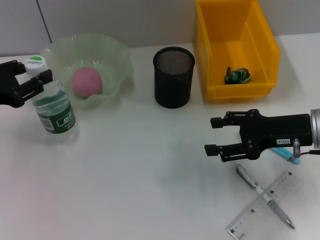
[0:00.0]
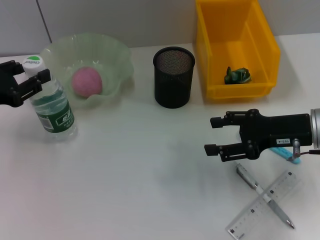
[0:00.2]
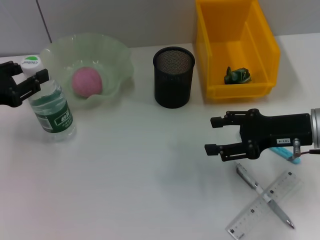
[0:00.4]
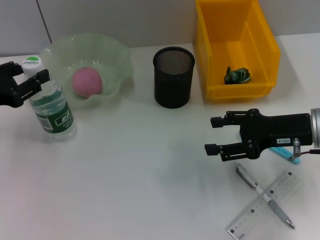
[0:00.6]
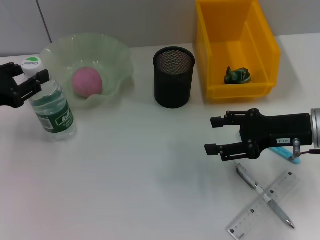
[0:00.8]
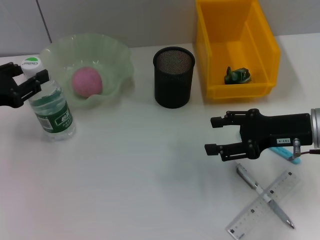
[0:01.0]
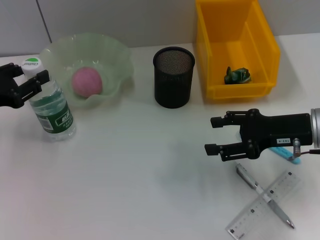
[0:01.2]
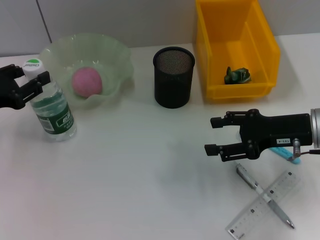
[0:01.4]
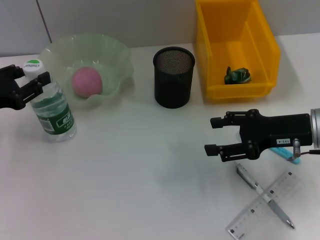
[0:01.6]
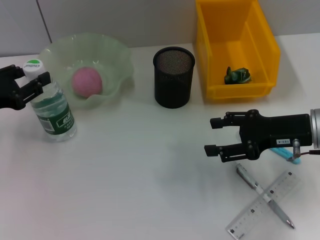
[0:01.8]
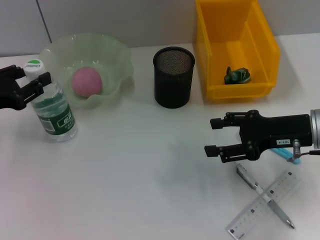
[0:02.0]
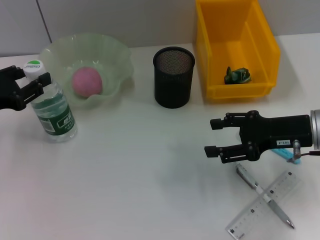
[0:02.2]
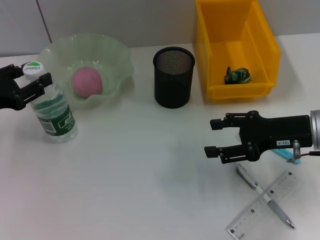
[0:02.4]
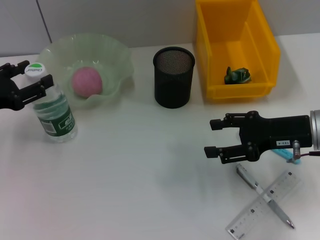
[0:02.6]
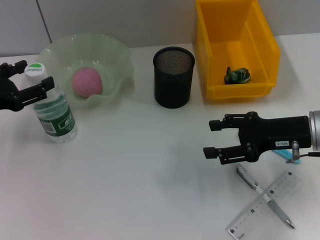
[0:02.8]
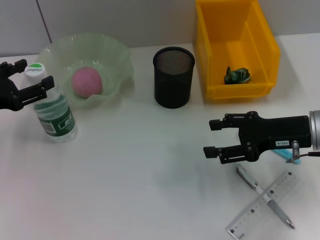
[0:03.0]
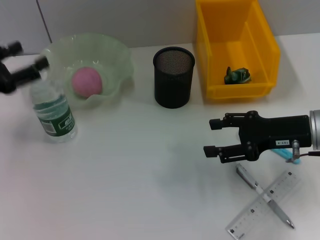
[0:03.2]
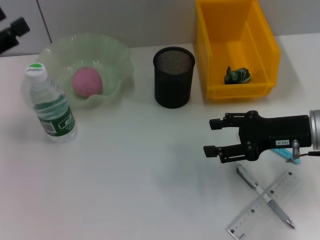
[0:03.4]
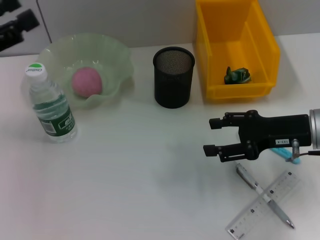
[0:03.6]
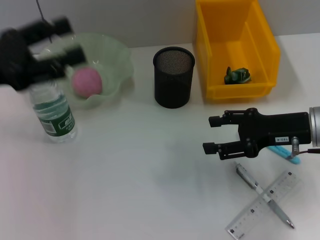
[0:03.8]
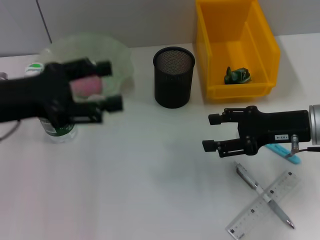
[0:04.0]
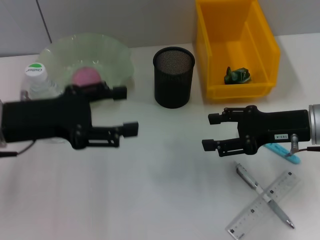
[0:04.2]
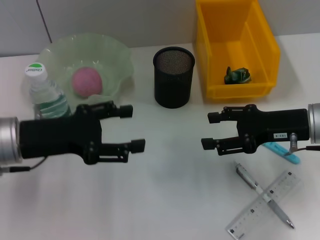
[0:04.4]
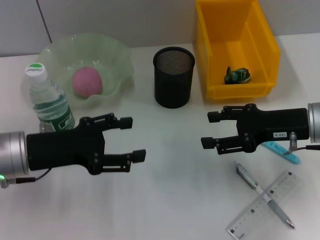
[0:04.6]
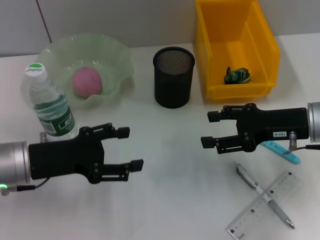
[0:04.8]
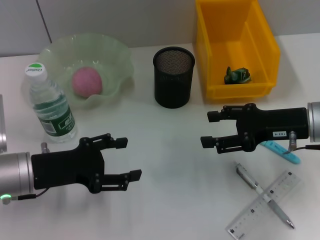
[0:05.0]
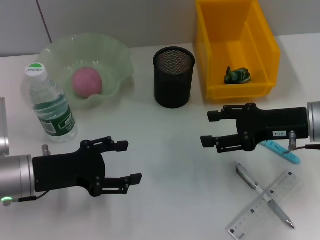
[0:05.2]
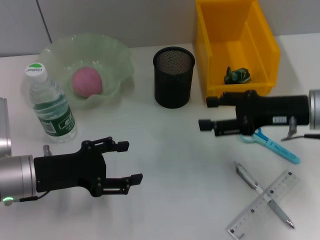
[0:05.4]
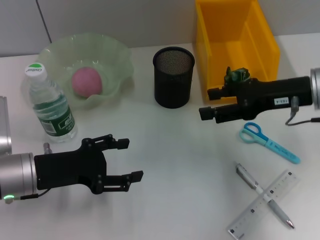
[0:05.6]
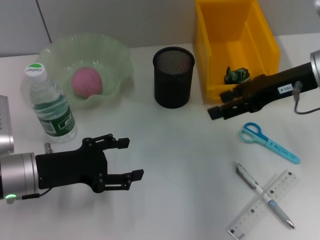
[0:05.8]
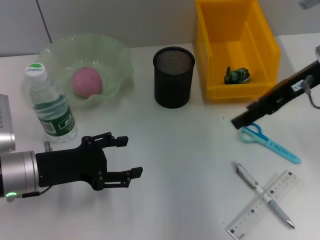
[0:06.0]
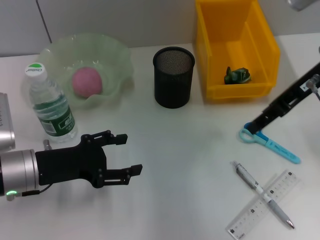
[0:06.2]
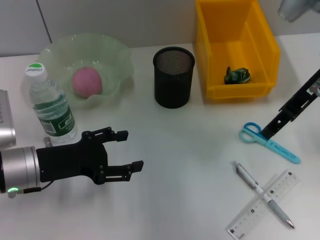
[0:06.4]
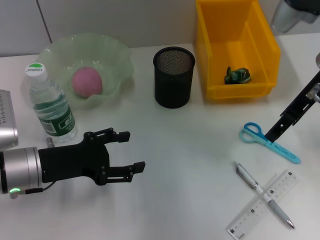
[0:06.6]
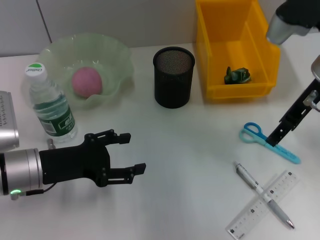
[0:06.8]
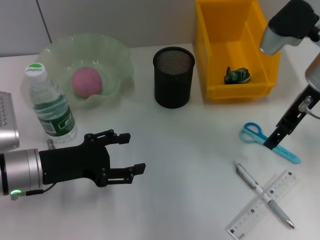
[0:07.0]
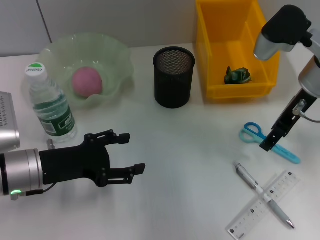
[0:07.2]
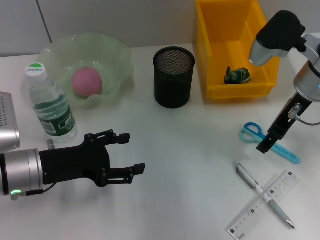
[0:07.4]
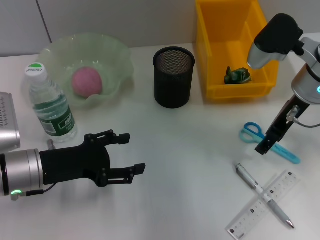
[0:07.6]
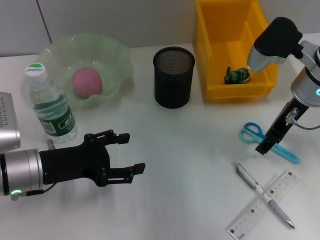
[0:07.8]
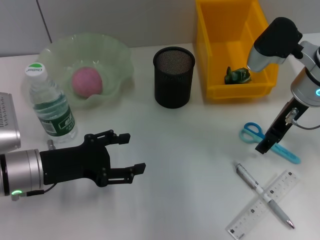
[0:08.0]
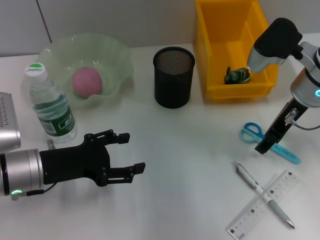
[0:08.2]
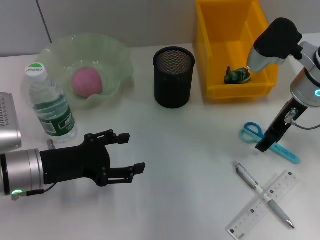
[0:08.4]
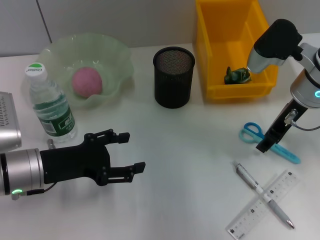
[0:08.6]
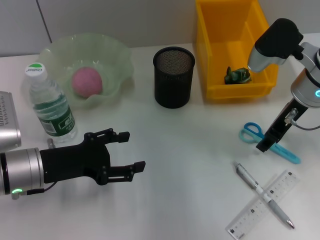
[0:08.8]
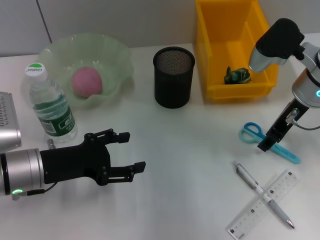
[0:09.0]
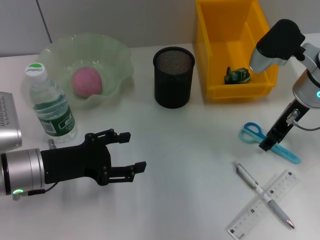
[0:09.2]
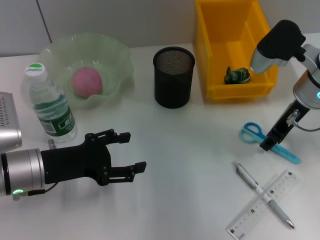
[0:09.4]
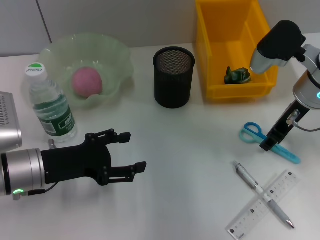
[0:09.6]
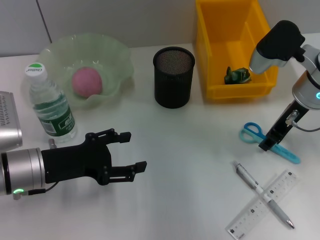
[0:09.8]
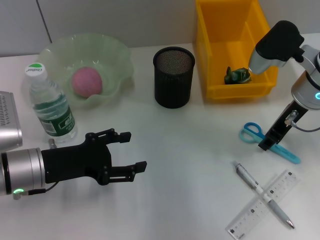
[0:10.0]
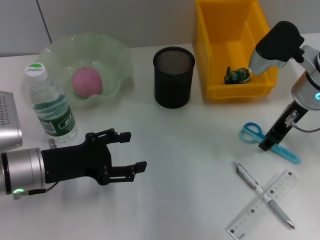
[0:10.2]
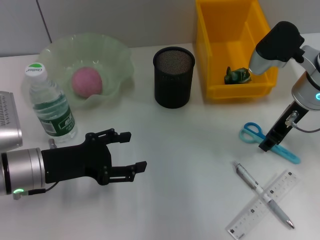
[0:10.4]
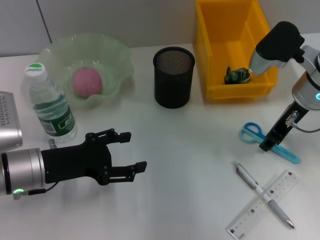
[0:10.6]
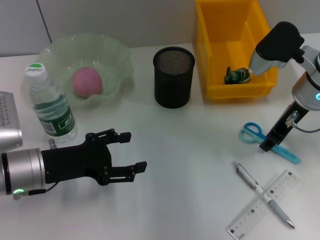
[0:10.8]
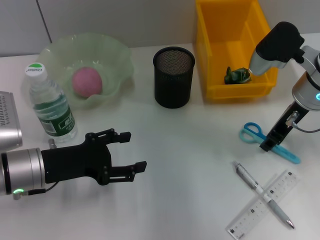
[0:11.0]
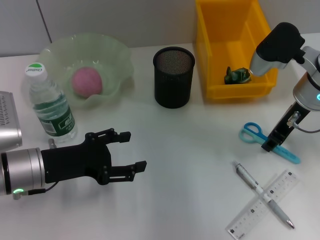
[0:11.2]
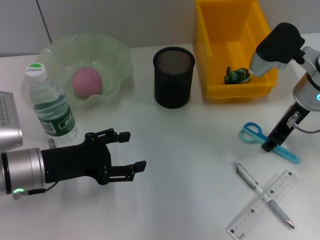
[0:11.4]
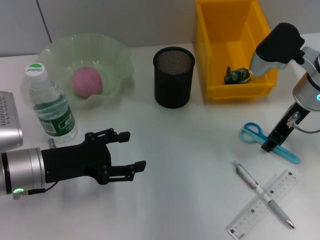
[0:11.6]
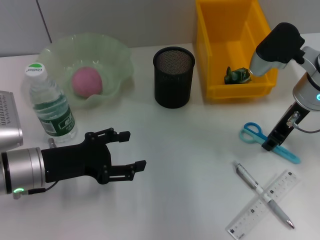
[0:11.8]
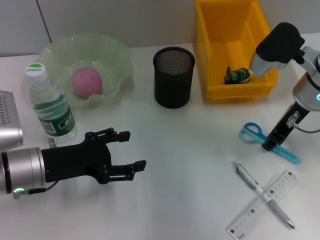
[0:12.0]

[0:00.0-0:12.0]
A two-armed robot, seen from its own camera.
Step, 0:00.0 to 0:03.0: Place the water bottle on the table with the left hand.
0:00.0 to 0:01.6: The grippers stay close to where they were, moving slightly.
0:01.6 to 0:03.0: The left gripper opens.
0:03.0 to 0:04.4: The left gripper travels to the right by approximately 10 cm.
0:04.4 to 0:06.0: The right gripper moves upward and forward, some 10 cm. The left gripper travels downward by some 5 cm.
0:06.0 to 0:07.6: The right gripper travels downward by roughly 5 cm.
0:07.6 to 0:09.0: The two grippers keep their place.
0:09.0 to 0:12.0: The two grippers keep their place.

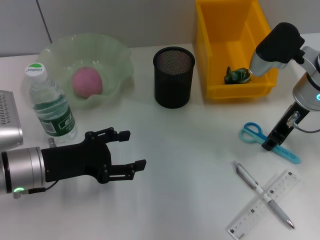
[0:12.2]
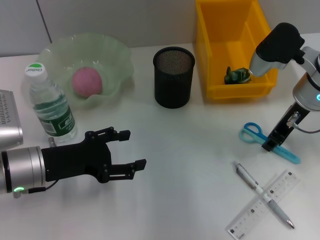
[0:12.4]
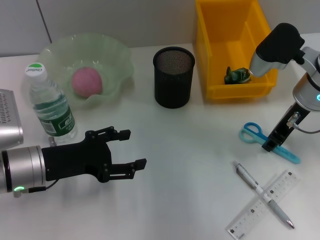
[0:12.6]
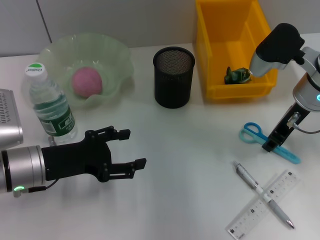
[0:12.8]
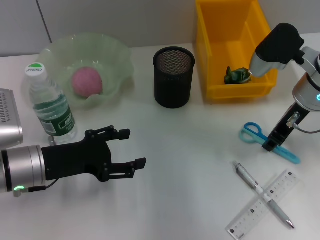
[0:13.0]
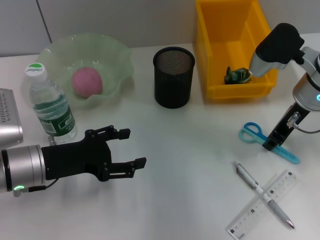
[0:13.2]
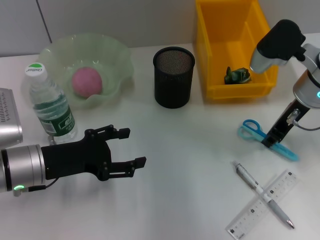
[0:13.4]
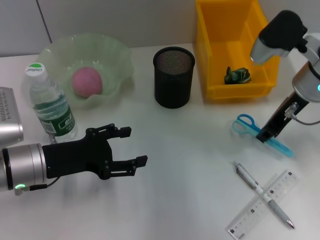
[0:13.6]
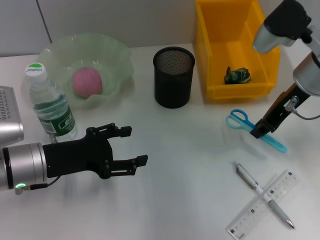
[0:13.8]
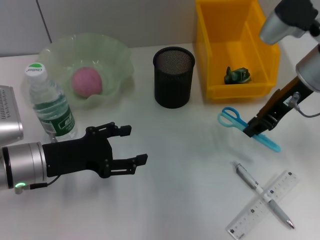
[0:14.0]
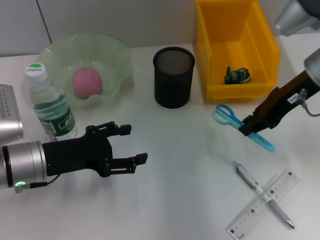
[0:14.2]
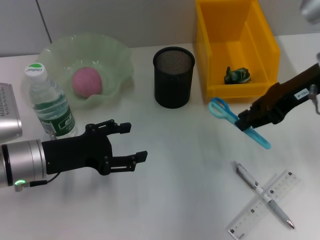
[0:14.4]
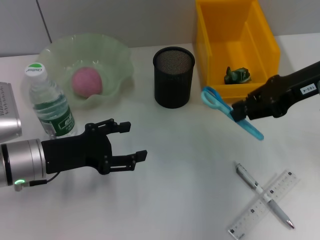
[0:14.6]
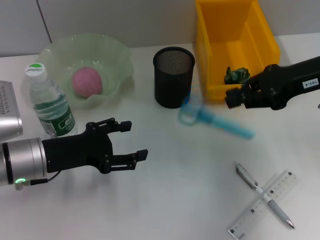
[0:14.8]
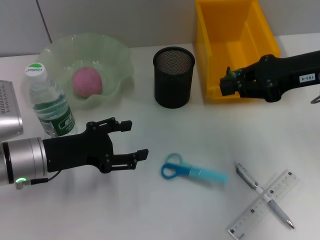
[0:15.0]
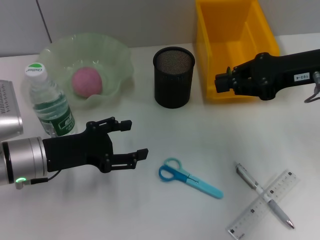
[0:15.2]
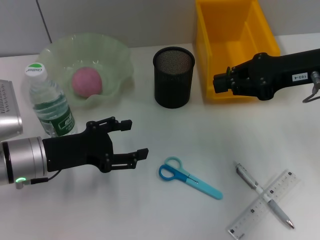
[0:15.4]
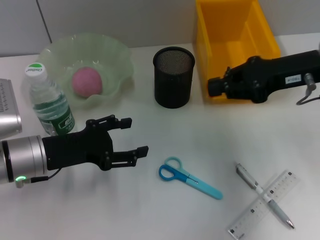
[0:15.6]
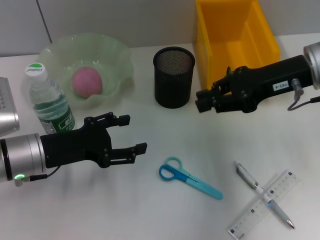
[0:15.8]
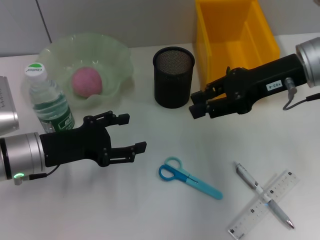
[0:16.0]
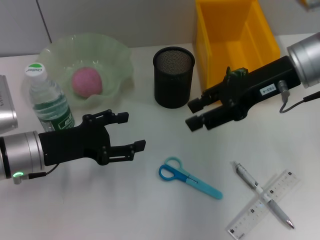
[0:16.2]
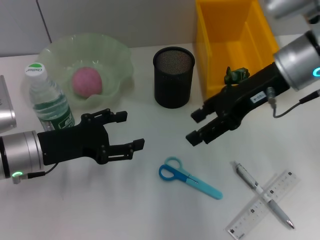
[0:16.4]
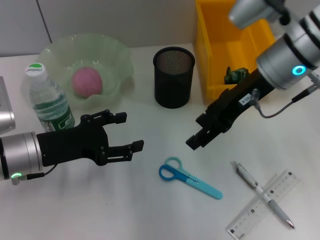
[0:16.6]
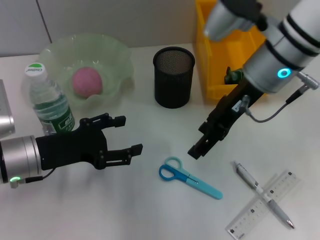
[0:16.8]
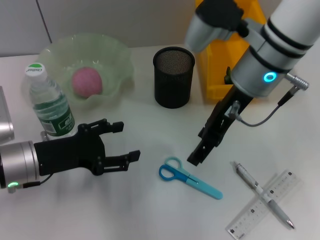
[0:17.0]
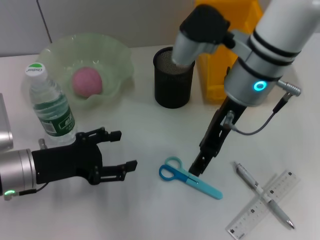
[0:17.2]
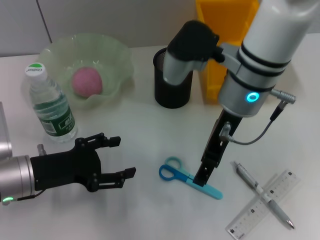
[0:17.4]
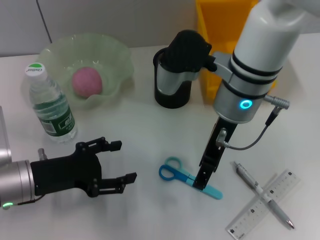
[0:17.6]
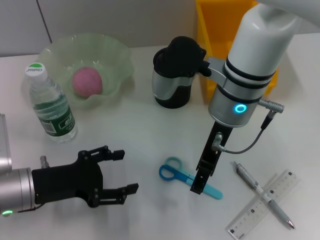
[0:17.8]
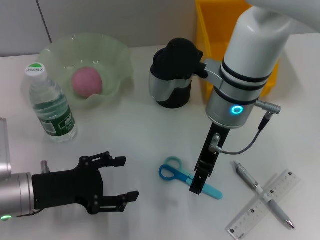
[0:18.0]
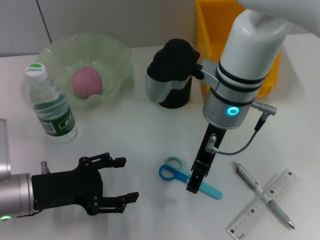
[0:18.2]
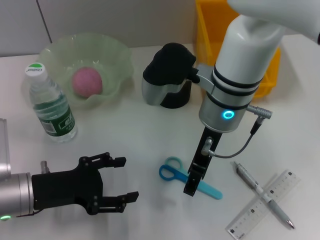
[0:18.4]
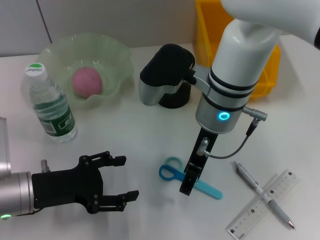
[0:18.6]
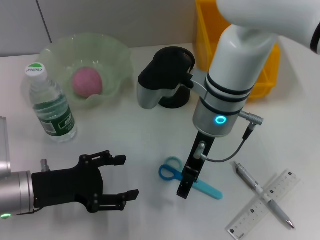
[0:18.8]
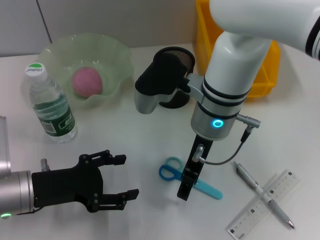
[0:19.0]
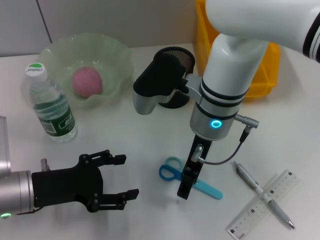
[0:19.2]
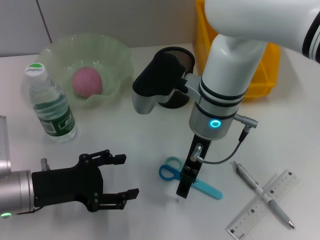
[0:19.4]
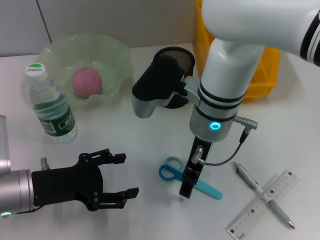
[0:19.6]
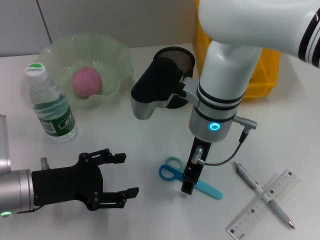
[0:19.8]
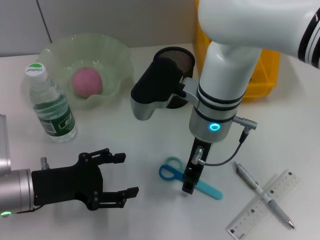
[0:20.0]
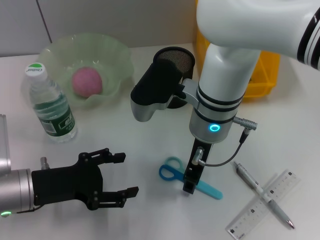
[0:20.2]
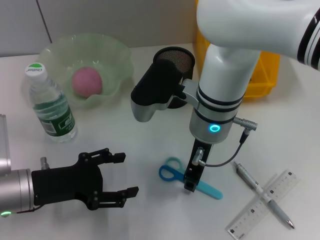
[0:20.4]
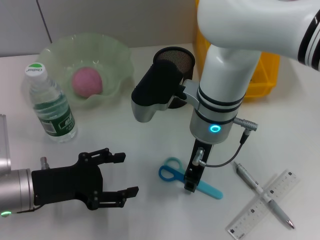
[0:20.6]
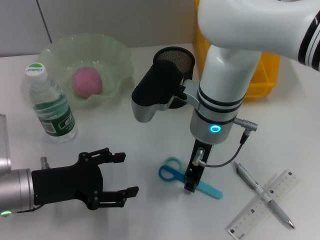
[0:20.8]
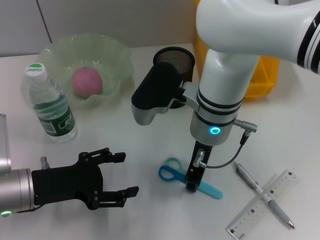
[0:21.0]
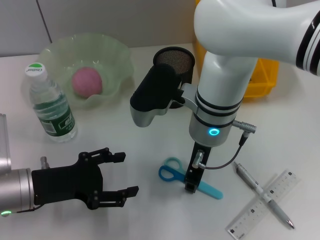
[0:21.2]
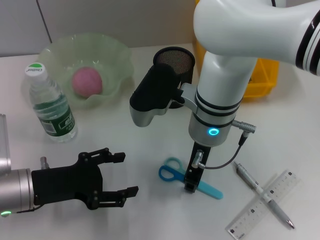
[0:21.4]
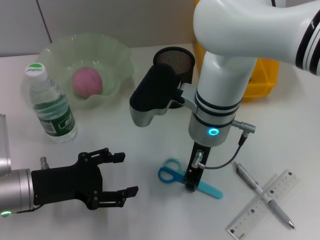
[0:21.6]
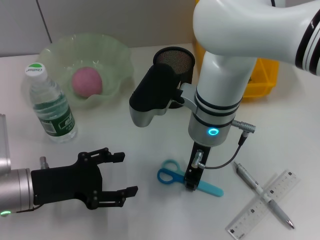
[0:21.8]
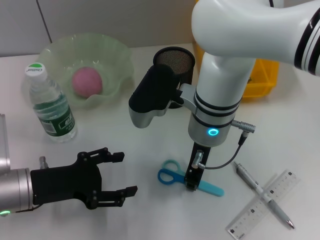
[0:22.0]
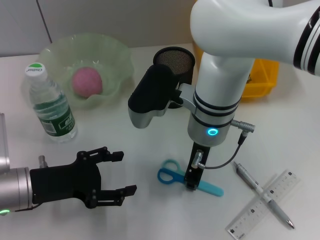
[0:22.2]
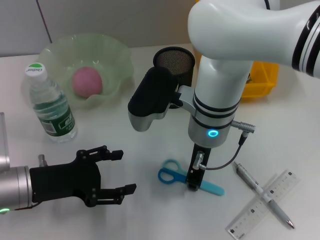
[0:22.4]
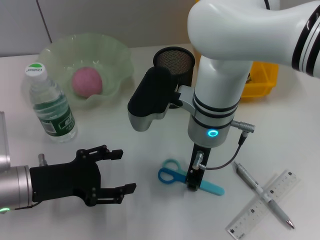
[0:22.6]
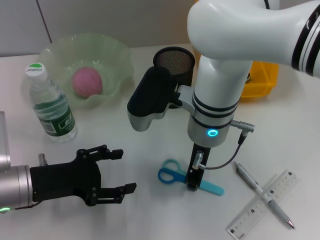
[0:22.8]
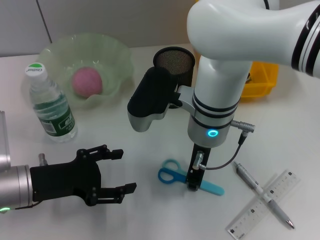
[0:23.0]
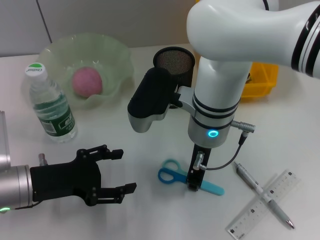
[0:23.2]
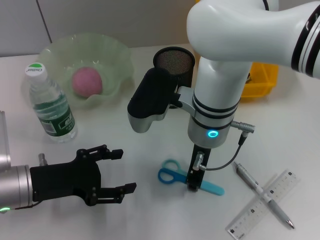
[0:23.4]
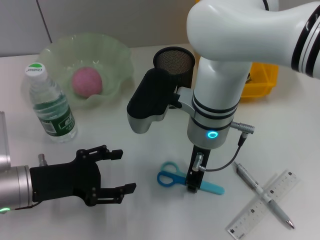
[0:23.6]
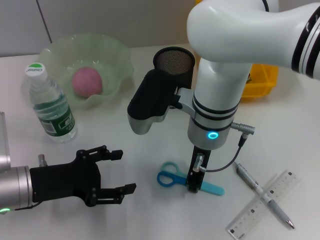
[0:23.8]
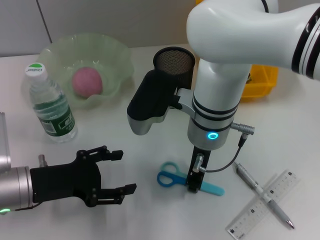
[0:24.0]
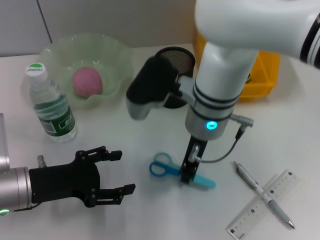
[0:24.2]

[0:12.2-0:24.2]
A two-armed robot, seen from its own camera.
Step, 0:12.2 to 0:23.6: Grab the blue scissors with the right hand.
0:12.2 to 0:13.8: The grippers move only a little.
0:13.8 to 0:15.2: The right gripper shifts by about 5 cm.
0:15.2 to 0:16.6: The right gripper is displaced to the left by roughly 10 cm, and opens up.
0:16.6 to 0:18.2: The right gripper heads to the left, covering approximately 10 cm, while the left gripper changes place by approximately 5 cm.
0:19.8 to 0:21.2: The right gripper closes.
0:21.2 to 0:24.2: The two grippers keep their place.
